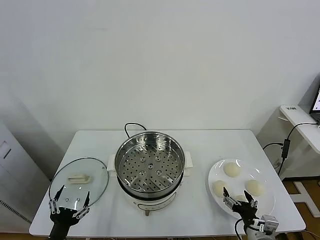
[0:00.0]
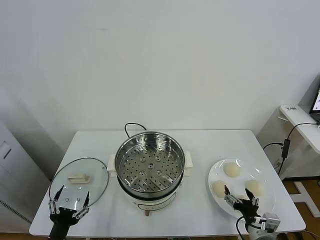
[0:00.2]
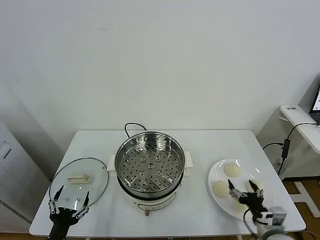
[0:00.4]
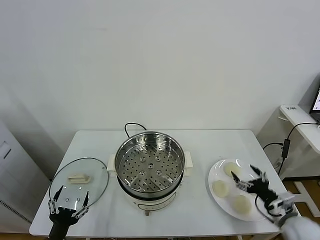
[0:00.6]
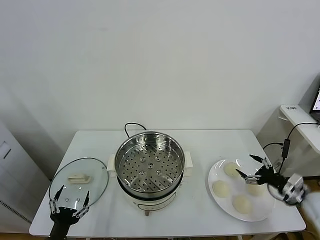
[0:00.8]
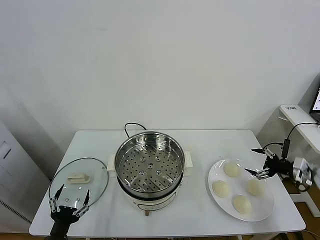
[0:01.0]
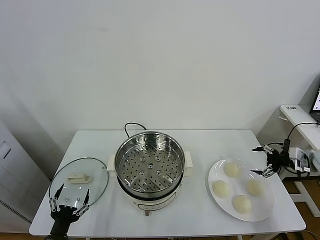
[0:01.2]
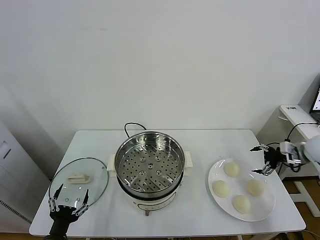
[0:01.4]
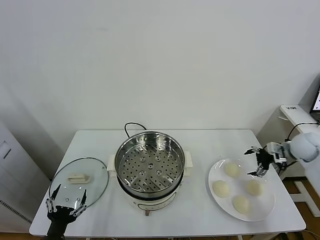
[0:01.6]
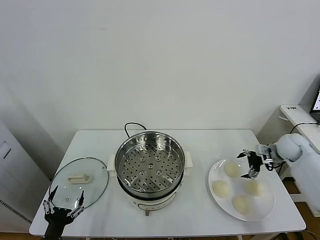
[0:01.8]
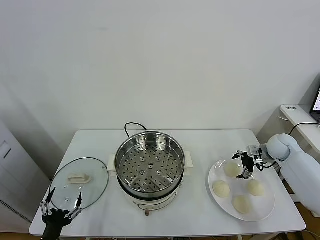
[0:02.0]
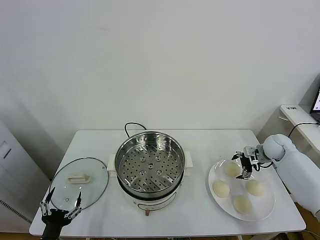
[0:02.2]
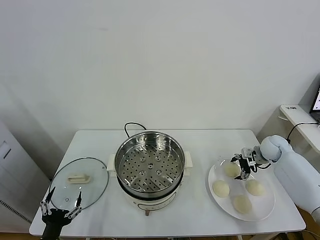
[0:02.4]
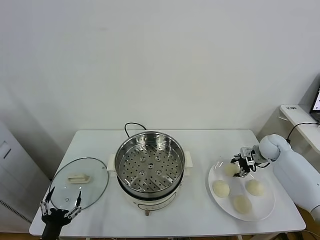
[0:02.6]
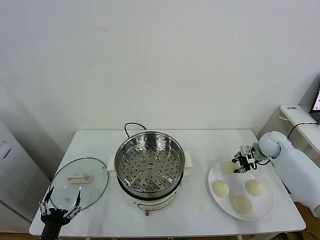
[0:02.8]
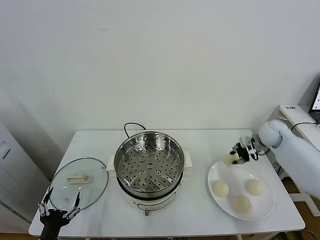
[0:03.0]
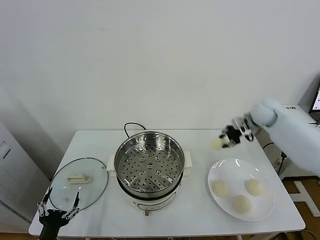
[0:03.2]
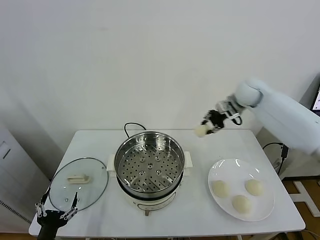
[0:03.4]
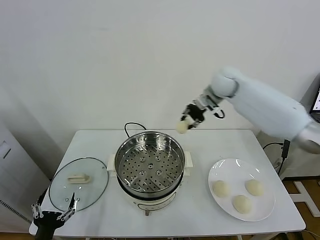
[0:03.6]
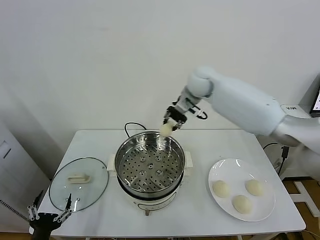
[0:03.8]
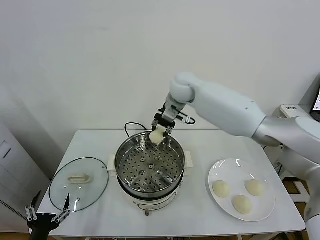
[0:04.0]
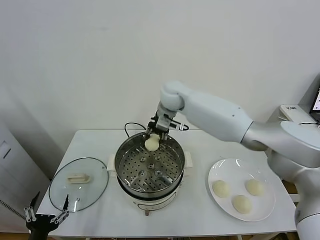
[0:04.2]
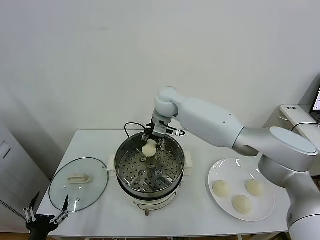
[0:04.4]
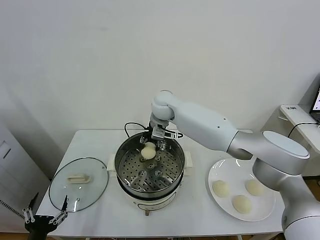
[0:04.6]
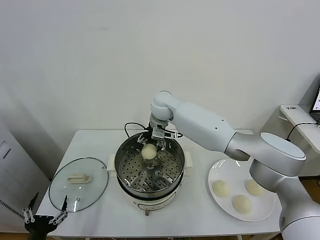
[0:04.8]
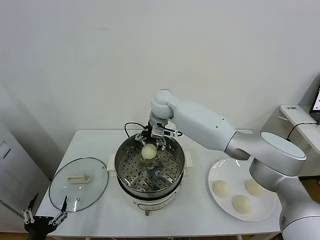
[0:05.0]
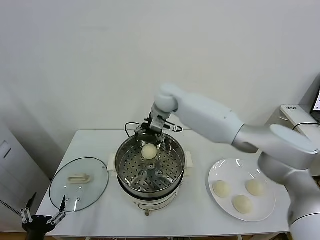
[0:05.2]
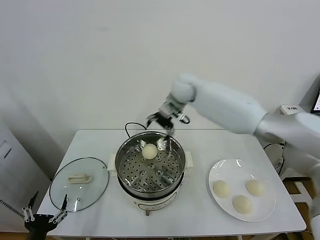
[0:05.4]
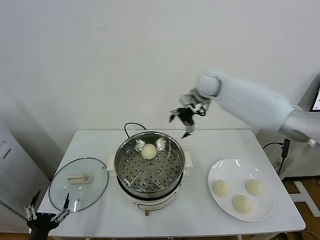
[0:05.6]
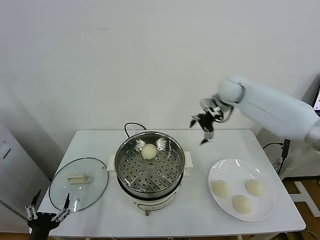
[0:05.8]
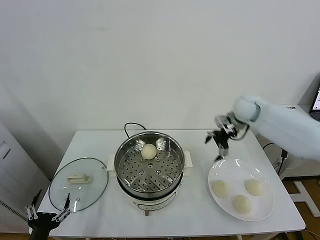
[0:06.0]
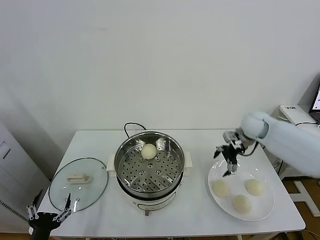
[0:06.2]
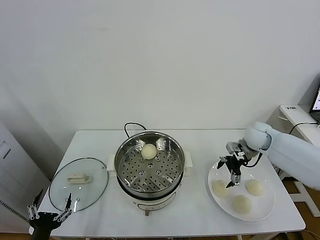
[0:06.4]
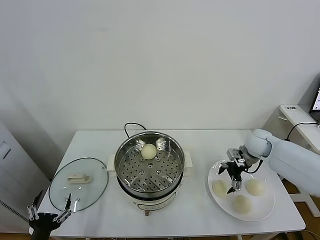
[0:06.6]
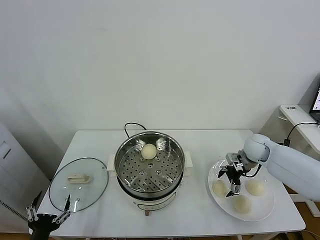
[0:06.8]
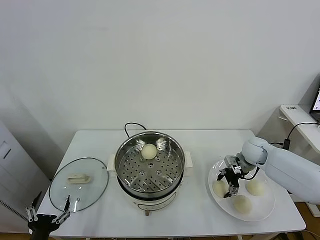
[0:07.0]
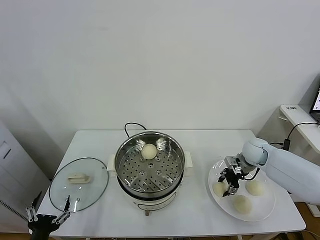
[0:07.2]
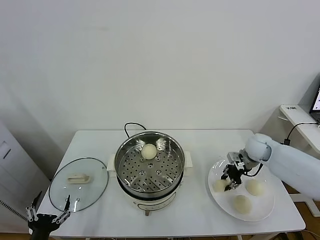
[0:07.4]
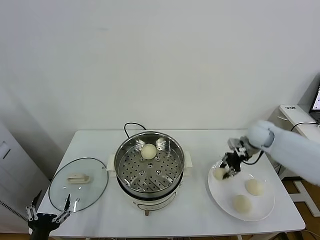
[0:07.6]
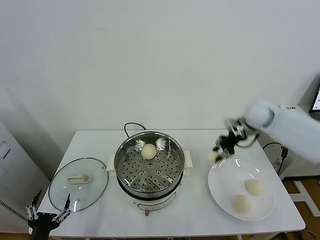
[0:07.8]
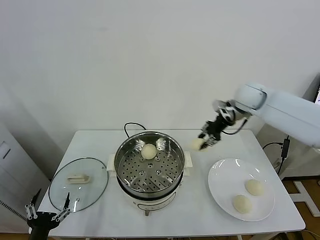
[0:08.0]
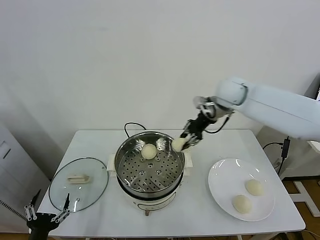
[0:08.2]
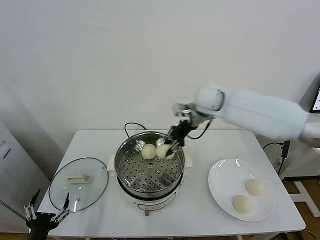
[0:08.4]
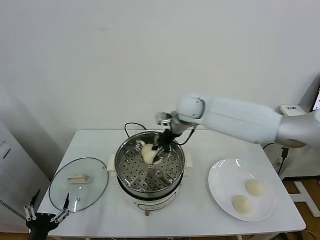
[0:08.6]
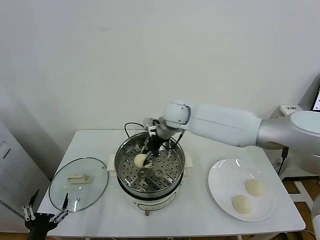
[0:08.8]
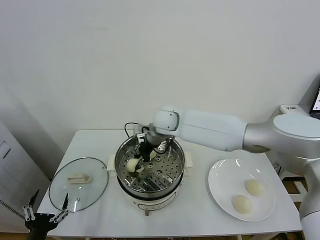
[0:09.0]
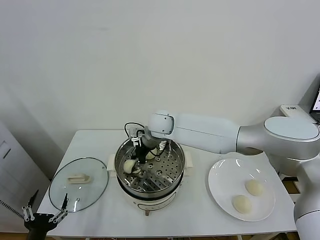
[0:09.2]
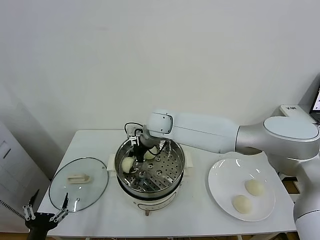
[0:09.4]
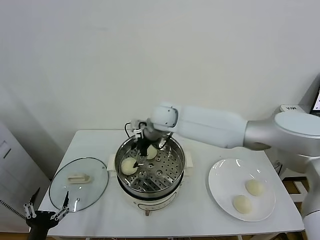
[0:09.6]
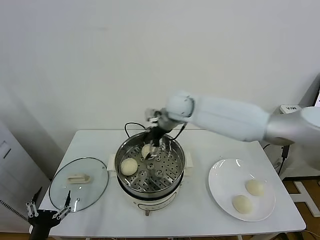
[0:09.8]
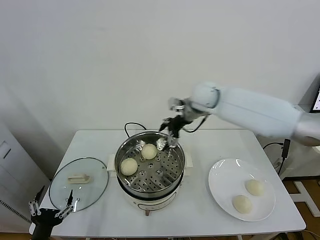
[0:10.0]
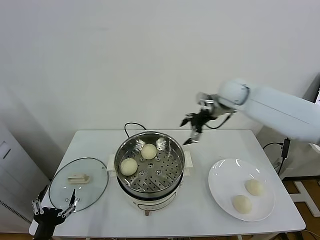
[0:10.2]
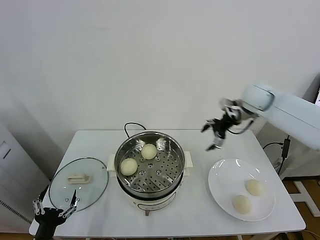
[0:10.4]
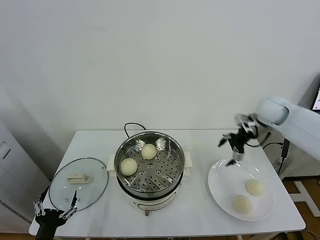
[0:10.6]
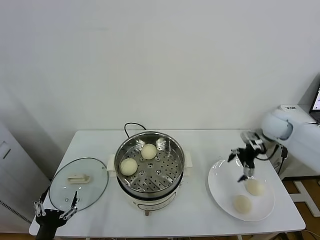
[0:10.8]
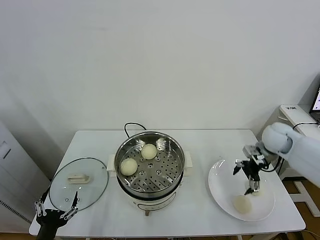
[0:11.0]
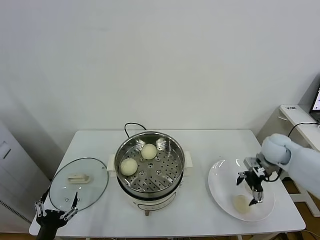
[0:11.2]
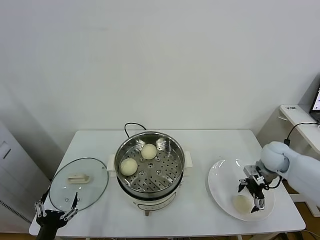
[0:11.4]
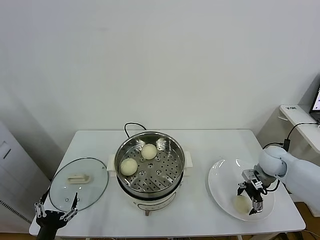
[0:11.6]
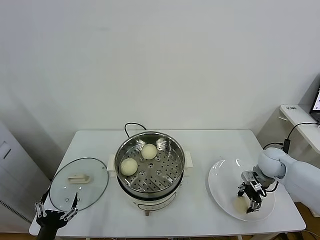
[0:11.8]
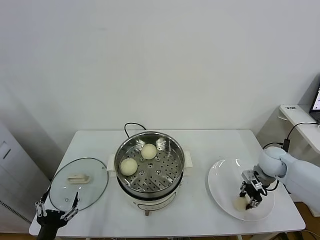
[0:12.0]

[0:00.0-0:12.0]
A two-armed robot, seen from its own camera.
Task of the whole recording: take steamed baozi put them in steamer.
Step, 0:00.0 to 0:02.4: Grasp the baozi in the plate with right gripper.
Step, 0:02.6 to 0:04.8: Place the baozi on the steamer with right gripper.
Step, 0:05.0 to 0:07.0: Grasp the baozi in the plate with right gripper.
Step, 0:07.4 to 0:09.6: Place the baozi on the steamer with right gripper.
Step, 0:09.8 to 0:11.8: Grasp the baozi in the plate with right gripper.
0:01.6 to 0:03.0: The right gripper heads to the left, forward and upward, covering about 15 cm, and closes.
0:03.0 to 0:04.4: The right gripper shifts about 40 cm to the left.
0:04.4 to 0:06.0: The right gripper moves to the right, some 30 cm, and opens.
0:06.0 to 0:07.6: The right gripper goes downward and returns, some 15 cm each way, and closes.
0:07.6 to 0:09.0: The right gripper travels to the left by about 35 cm.
0:09.0 to 0:10.4: The right gripper goes approximately 35 cm to the right, and opens its fingers.
0:10.4 to 0:12.0: The right gripper goes some 20 cm downward and backward, and closes up.

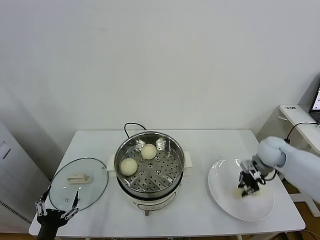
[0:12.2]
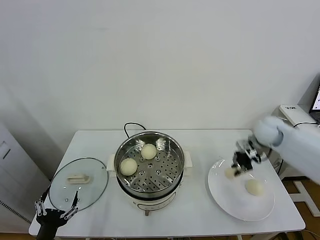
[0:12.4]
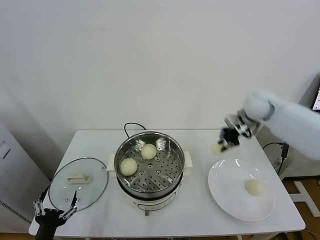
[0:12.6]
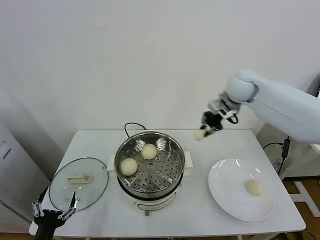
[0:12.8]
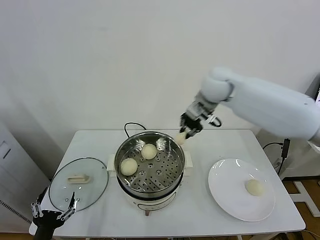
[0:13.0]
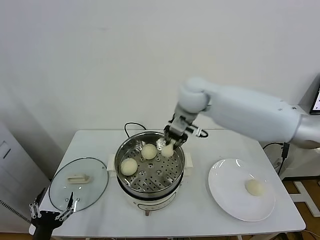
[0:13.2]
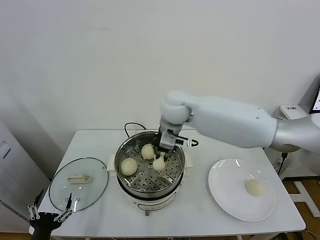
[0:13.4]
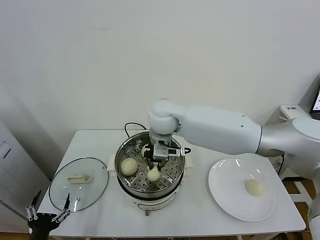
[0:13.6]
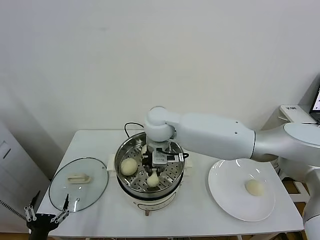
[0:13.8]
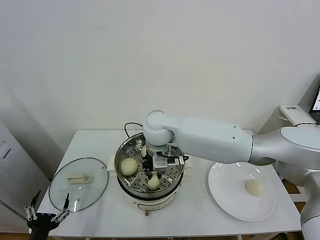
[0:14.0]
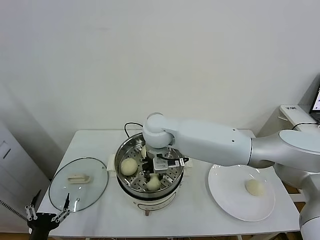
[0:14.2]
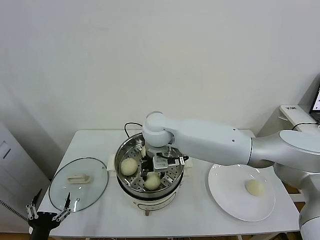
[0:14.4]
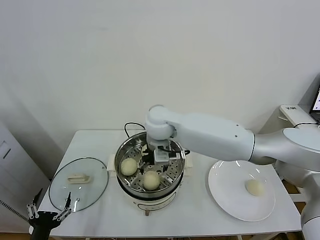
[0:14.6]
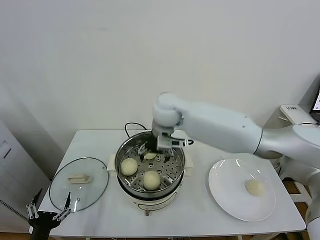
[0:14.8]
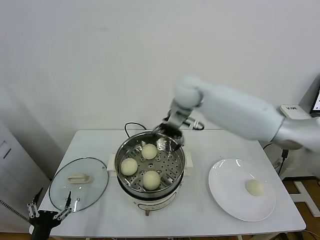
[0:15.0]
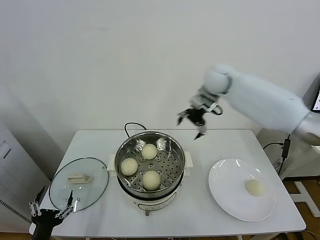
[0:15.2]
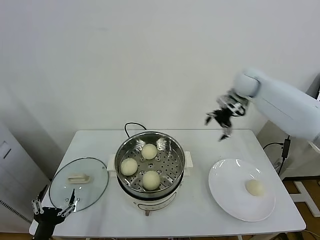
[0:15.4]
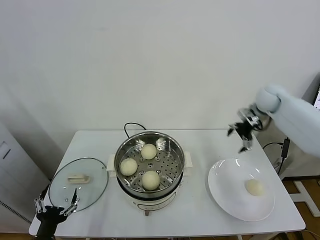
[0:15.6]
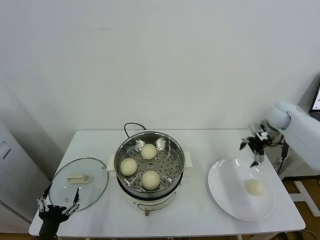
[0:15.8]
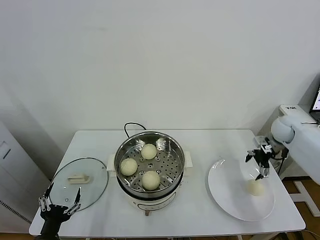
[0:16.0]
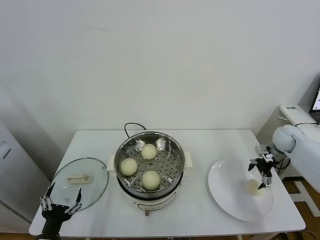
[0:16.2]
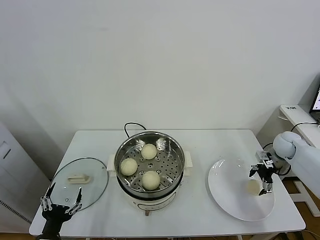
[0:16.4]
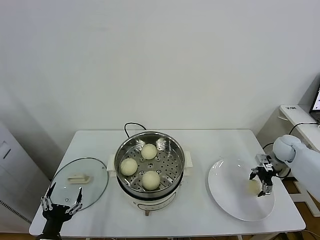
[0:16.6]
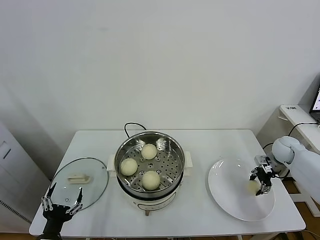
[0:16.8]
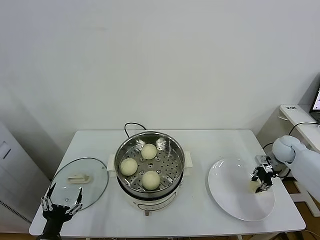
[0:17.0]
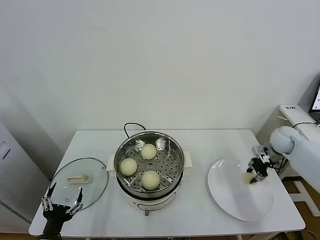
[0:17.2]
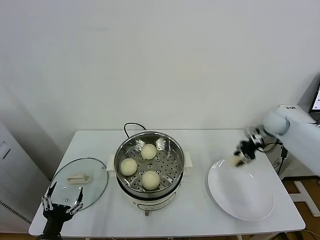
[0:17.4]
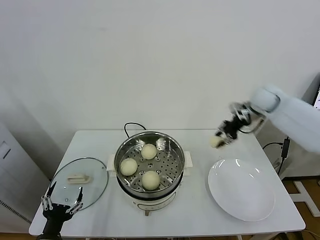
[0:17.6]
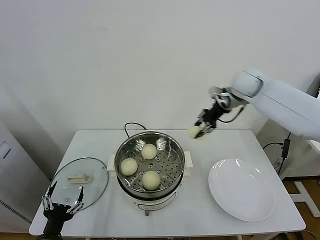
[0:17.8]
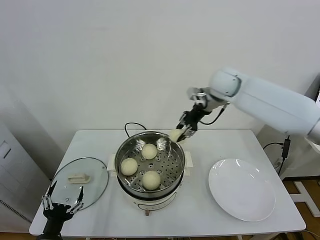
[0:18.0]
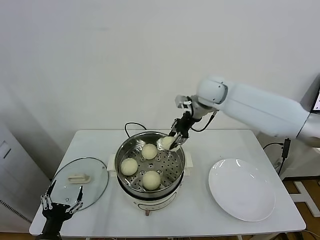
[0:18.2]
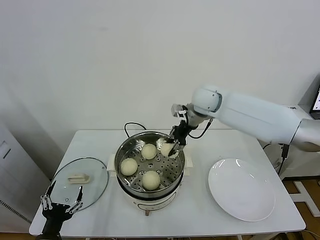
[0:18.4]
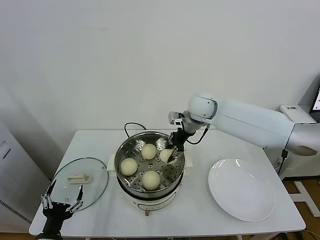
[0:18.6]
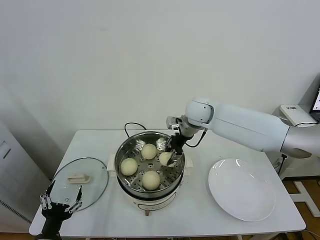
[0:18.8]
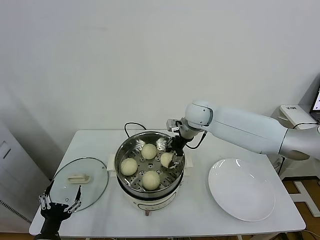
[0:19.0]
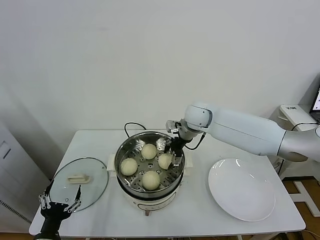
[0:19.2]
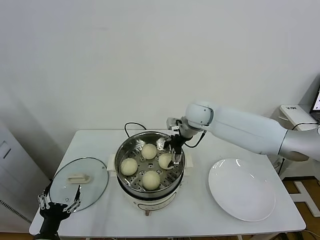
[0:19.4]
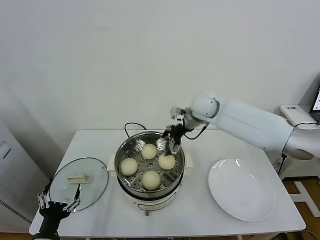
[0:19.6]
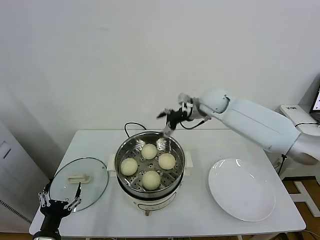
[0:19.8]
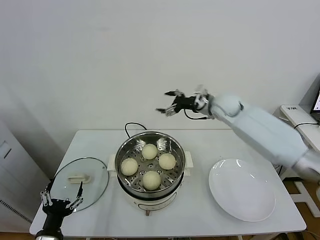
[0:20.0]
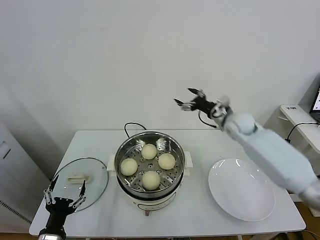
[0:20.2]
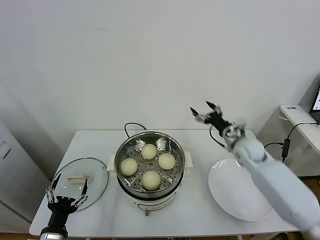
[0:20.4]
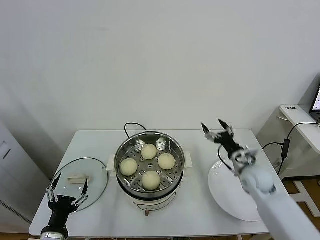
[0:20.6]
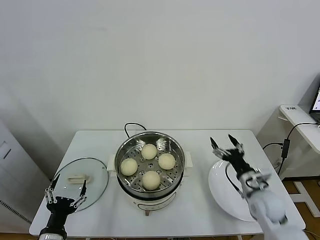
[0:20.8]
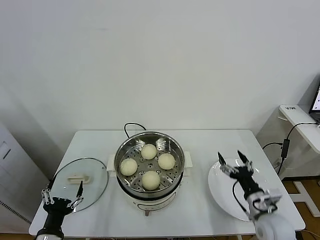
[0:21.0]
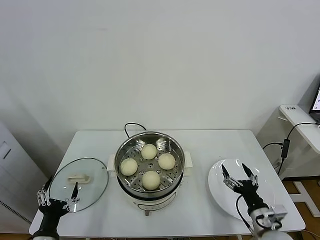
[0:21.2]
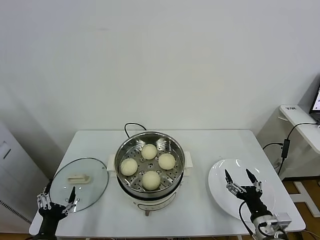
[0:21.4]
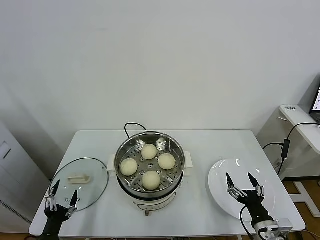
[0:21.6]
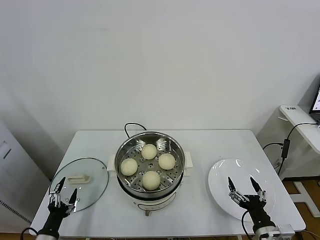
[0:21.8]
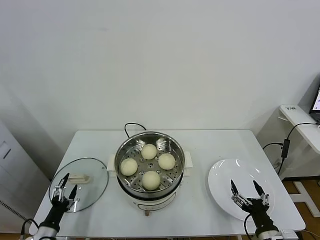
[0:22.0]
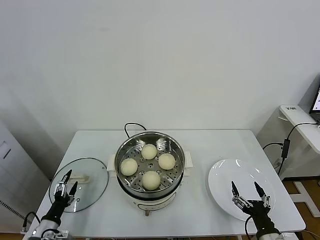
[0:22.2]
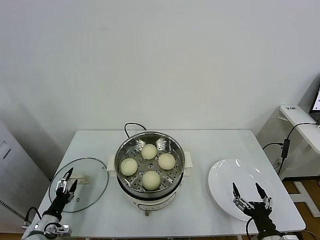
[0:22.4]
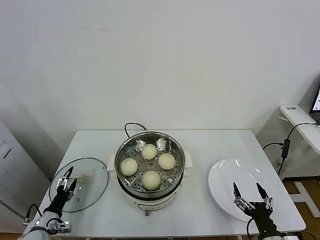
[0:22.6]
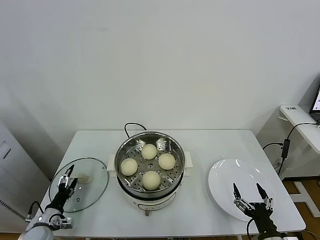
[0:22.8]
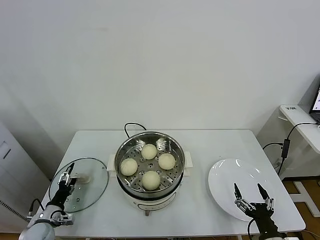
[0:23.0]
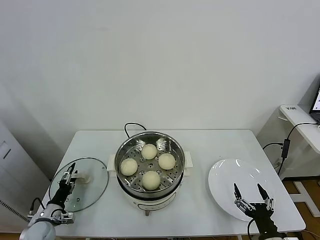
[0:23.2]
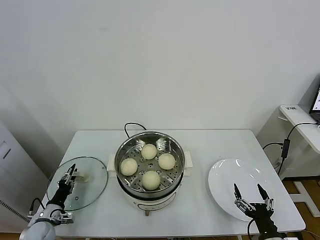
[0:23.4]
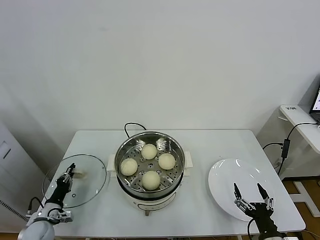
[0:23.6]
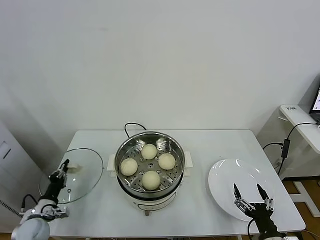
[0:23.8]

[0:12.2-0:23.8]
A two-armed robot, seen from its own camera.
Task of the whole recording: take steamed baozi put them in steamer.
Step, 0:12.2 to 0:14.6: Place the baozi on the steamer with right gripper.
Step, 0:14.8 to 0:16.6: Grasp the baozi in the plate with right gripper.
Step, 0:16.8 to 0:19.2: Place the baozi on the steamer with right gripper.
Step, 0:19.6 to 0:23.8: Grasp the pot lid with left gripper.
0:12.2 to 0:13.6: The right gripper is displaced to the left by approximately 40 cm.
0:13.6 to 0:15.0: The right gripper travels to the right, forward and upward by approximately 15 cm, and opens up.
0:15.0 to 0:16.6: The right gripper goes roughly 40 cm to the right and downward.
0:16.6 to 0:18.0: The right gripper moves to the left and upward, about 40 cm, and closes its fingers.
0:18.0 to 0:19.4: The right gripper goes about 10 cm downward and to the left, and opens.
0:19.4 to 0:21.0: The right gripper heads backward, downward and to the right, covering roughly 40 cm.
0:21.0 to 0:22.4: The left gripper is displaced downward, to the left and forward by approximately 15 cm; the right gripper is displaced backward by approximately 10 cm.
0:22.4 to 0:23.8: The left gripper ends up about 5 cm from where it was, and closes.
